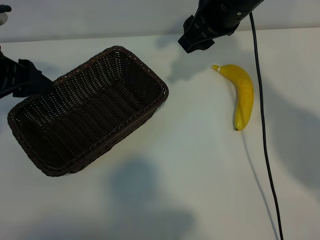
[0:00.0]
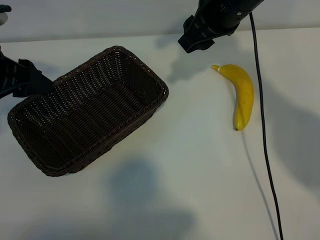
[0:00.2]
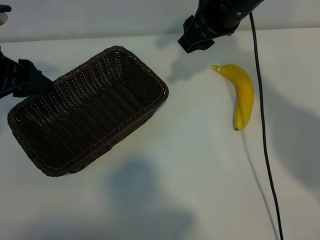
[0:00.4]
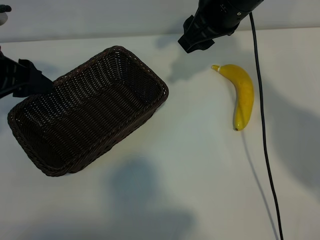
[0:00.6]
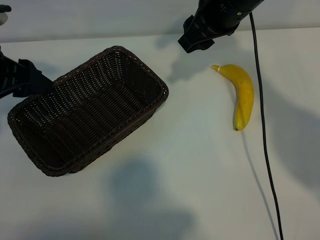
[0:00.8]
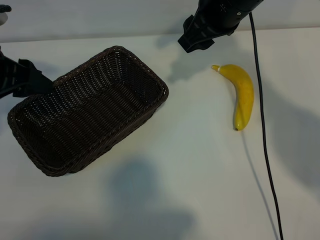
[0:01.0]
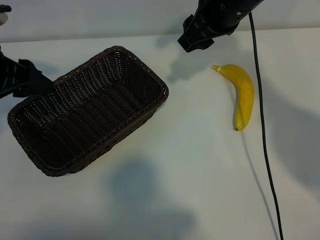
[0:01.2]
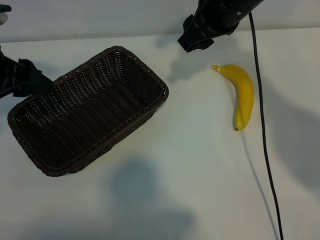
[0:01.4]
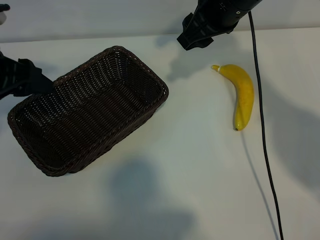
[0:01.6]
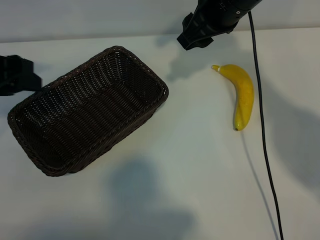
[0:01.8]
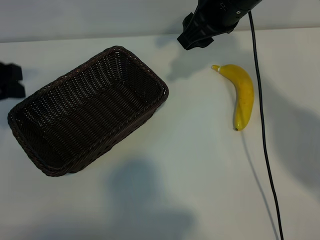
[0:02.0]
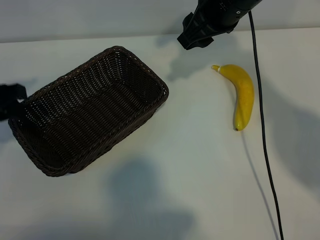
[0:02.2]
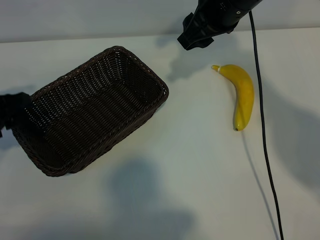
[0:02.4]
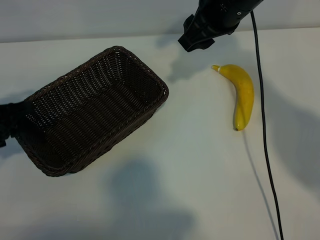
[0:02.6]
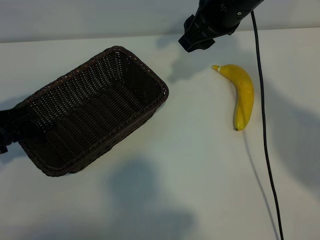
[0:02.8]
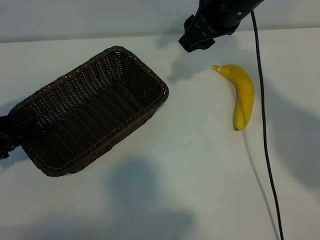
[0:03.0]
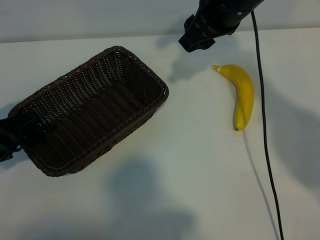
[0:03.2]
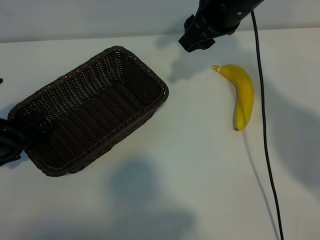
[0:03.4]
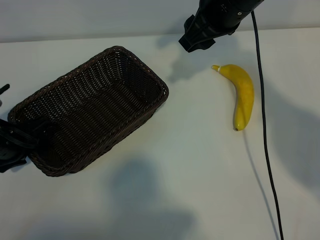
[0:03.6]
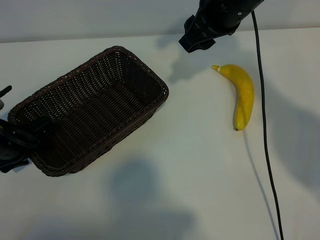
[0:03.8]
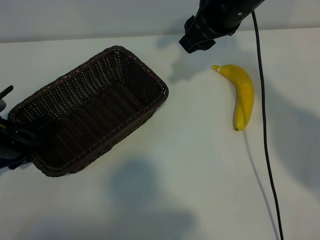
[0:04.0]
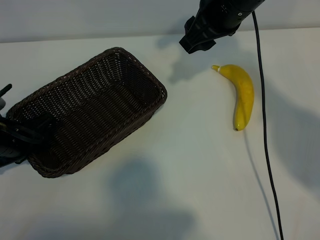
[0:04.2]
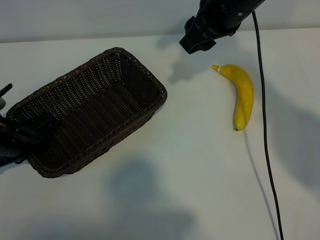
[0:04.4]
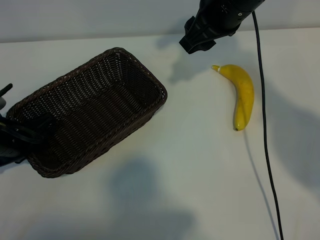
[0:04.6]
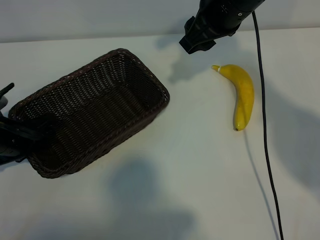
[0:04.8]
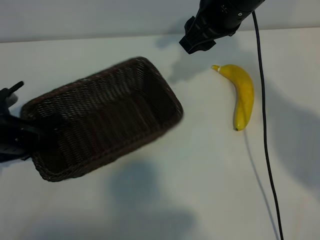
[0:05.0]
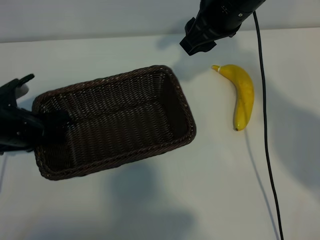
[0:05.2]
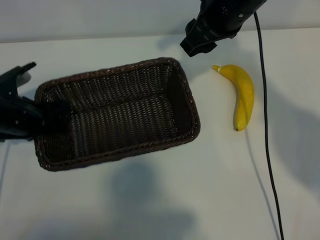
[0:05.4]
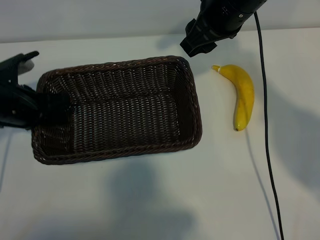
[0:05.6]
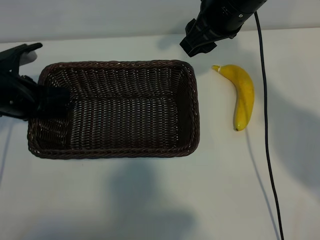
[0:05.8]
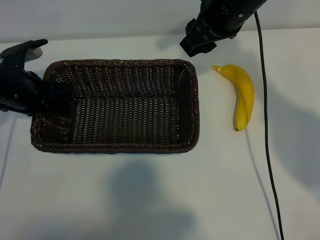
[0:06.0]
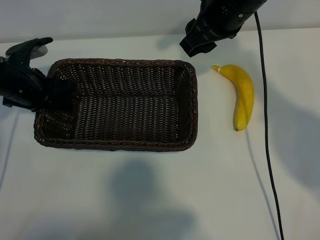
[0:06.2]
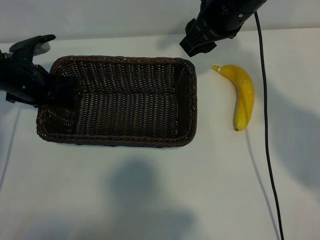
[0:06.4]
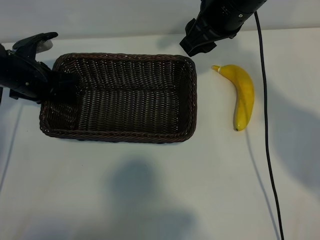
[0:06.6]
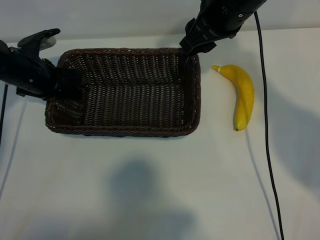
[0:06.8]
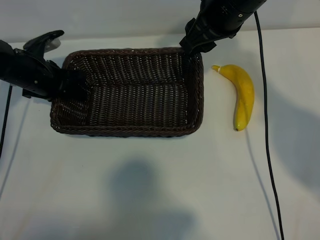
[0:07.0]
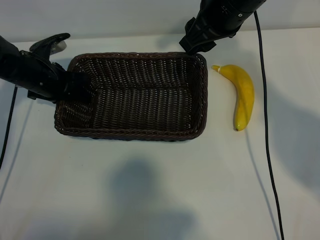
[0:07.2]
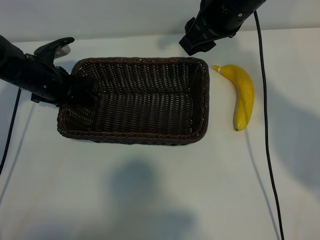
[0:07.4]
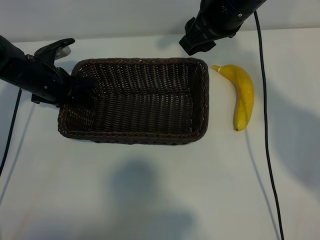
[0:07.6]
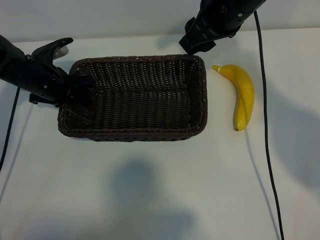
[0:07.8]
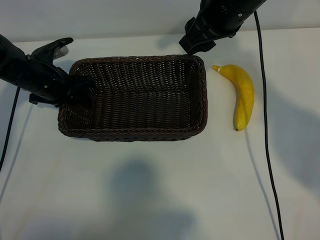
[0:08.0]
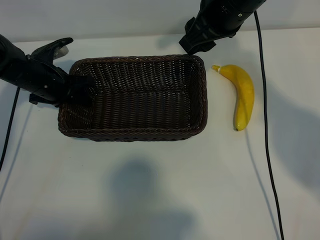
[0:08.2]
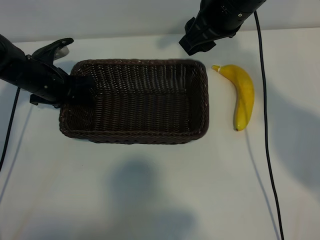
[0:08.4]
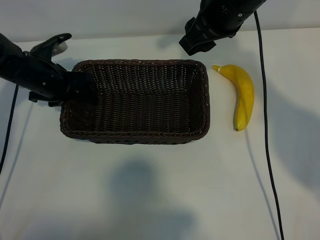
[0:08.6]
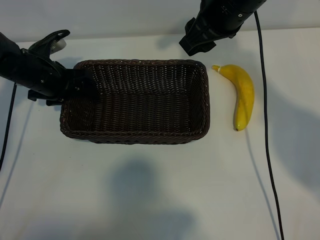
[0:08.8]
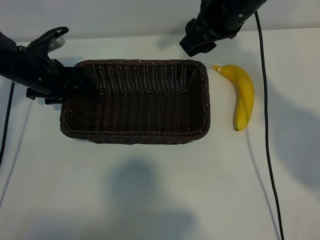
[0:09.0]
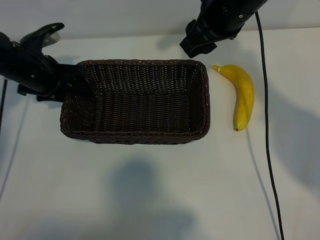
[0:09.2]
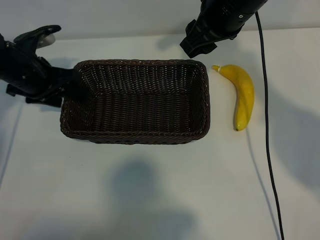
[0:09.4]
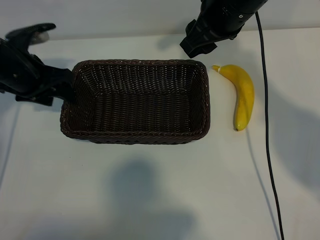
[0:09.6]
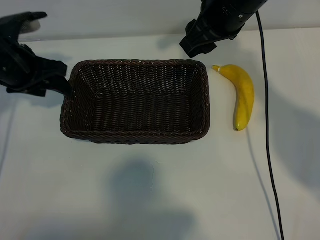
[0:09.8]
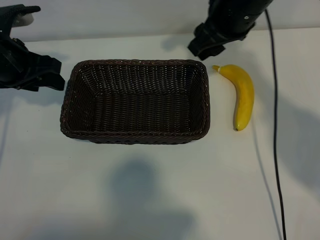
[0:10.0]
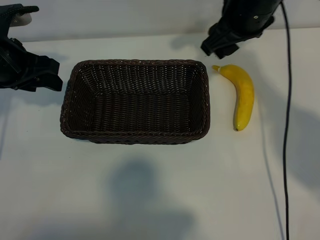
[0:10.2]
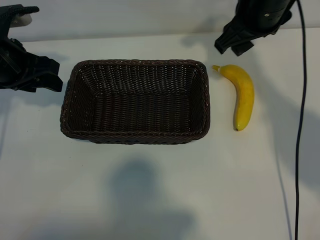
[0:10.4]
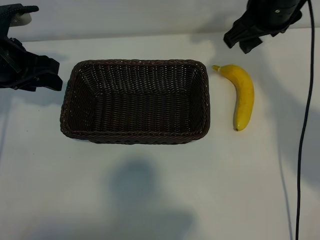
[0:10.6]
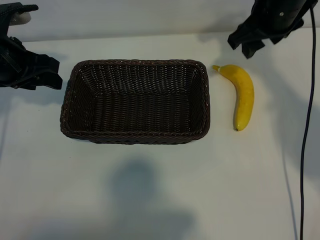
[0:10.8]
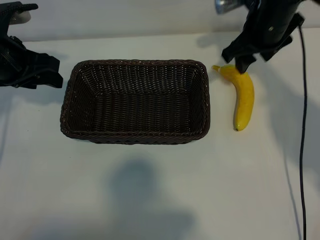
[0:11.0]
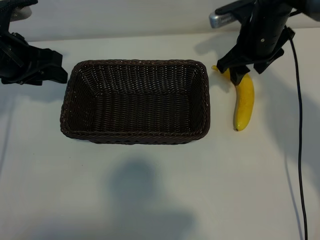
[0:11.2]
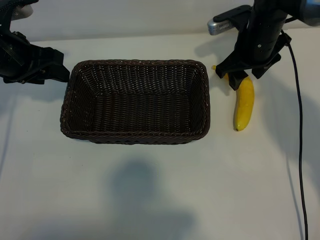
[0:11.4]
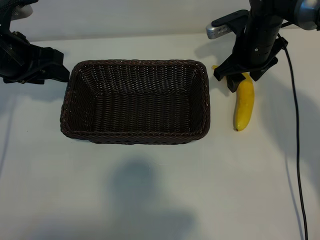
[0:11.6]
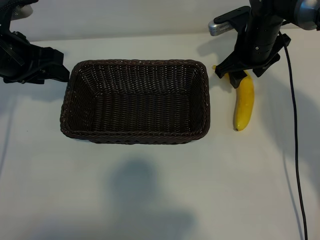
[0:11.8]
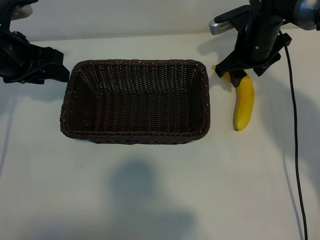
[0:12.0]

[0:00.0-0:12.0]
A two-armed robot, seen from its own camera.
Task of the whole recording: pick up the banana and put it into the basket.
Step, 0:01.0 to 0:04.6: Grasp the basket with the left gripper.
Step, 0:04.8 to 0:09.4: Place the basket in the center of the table with the left gripper.

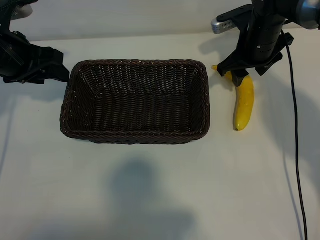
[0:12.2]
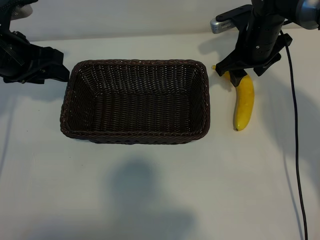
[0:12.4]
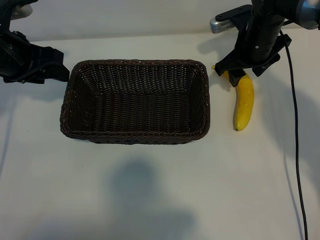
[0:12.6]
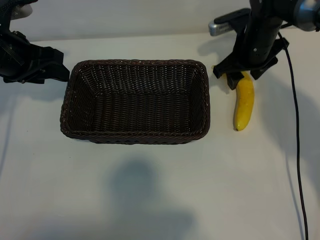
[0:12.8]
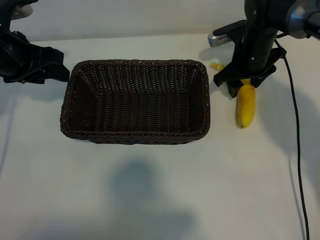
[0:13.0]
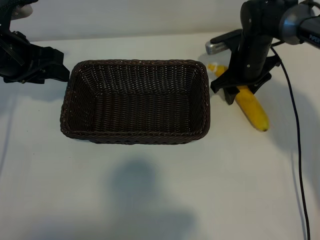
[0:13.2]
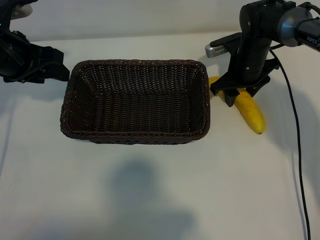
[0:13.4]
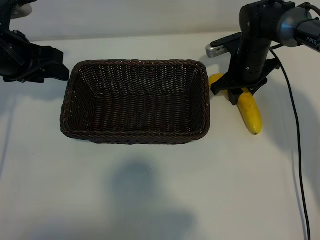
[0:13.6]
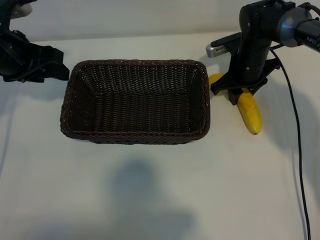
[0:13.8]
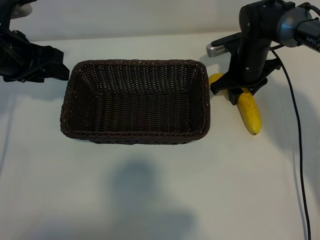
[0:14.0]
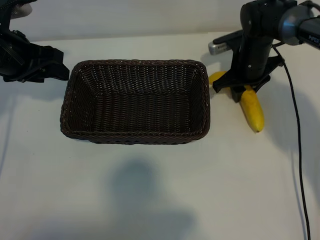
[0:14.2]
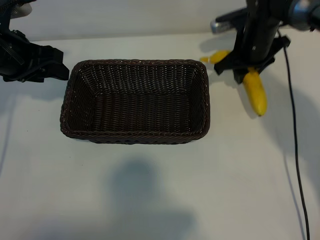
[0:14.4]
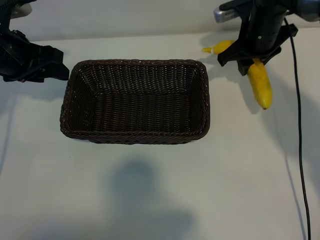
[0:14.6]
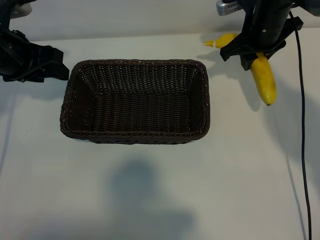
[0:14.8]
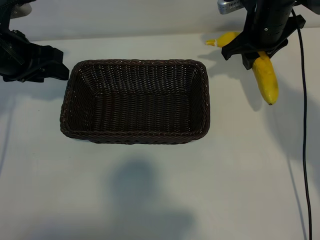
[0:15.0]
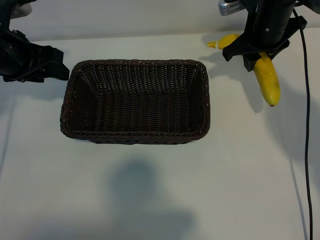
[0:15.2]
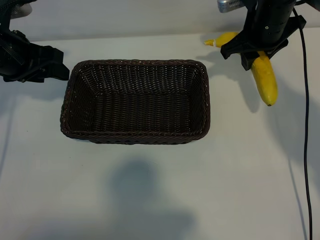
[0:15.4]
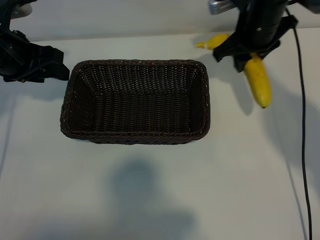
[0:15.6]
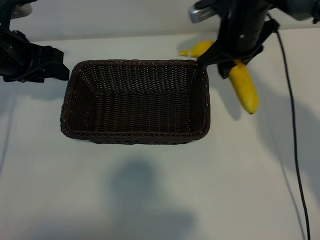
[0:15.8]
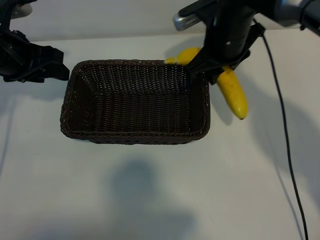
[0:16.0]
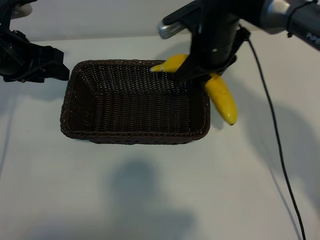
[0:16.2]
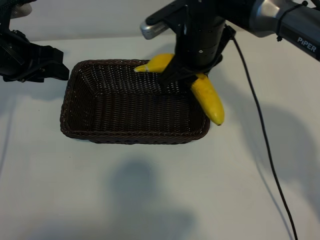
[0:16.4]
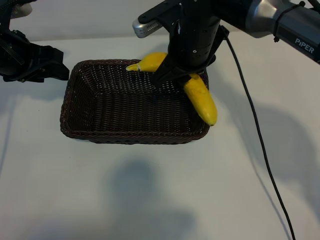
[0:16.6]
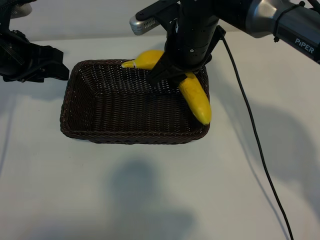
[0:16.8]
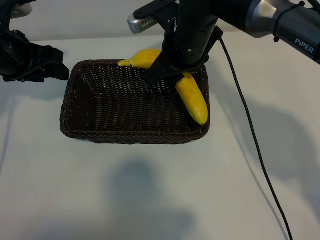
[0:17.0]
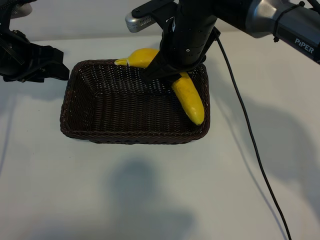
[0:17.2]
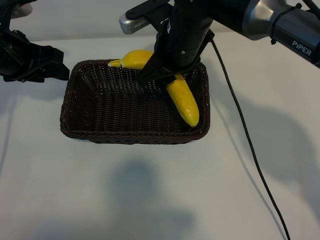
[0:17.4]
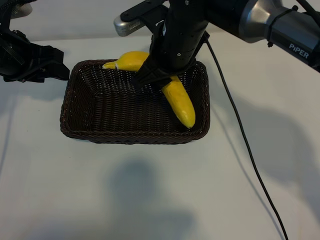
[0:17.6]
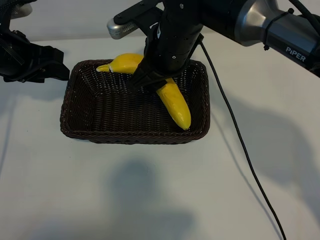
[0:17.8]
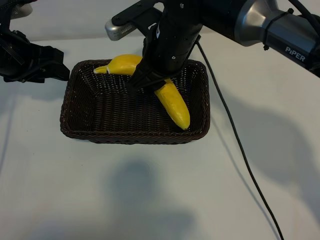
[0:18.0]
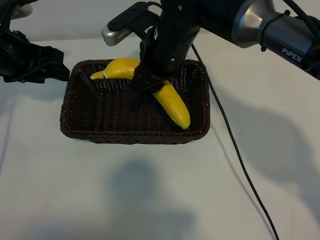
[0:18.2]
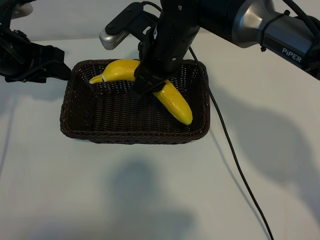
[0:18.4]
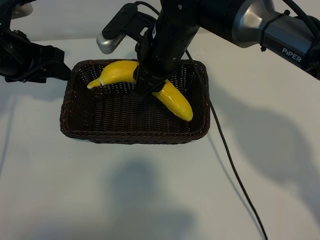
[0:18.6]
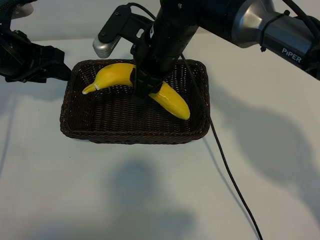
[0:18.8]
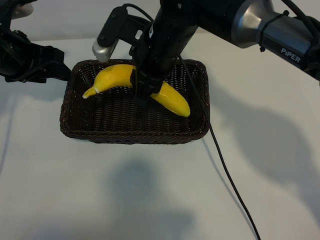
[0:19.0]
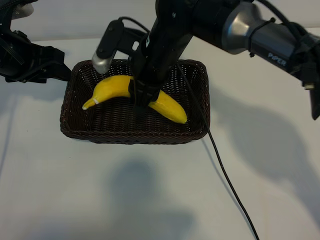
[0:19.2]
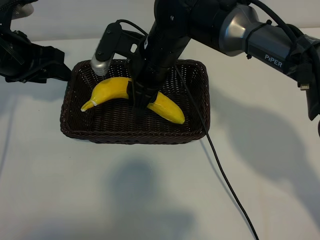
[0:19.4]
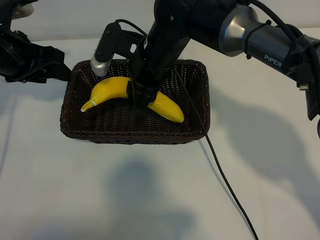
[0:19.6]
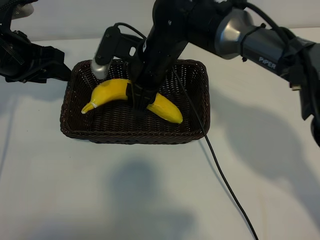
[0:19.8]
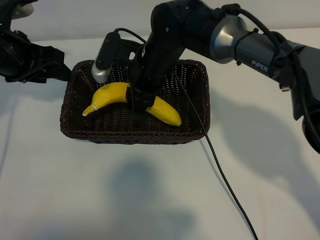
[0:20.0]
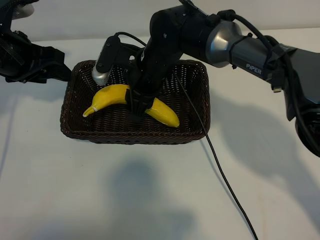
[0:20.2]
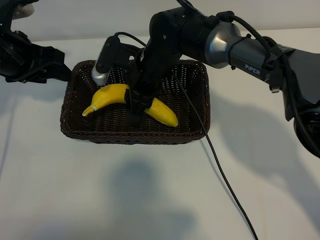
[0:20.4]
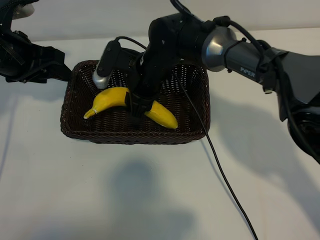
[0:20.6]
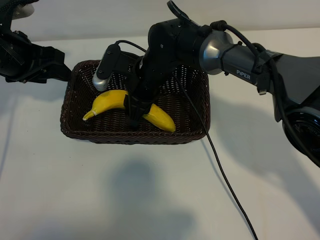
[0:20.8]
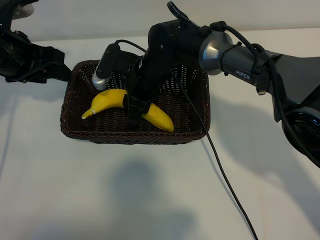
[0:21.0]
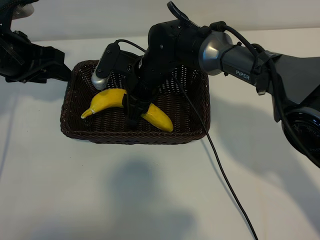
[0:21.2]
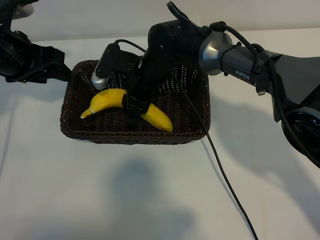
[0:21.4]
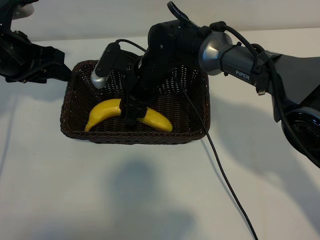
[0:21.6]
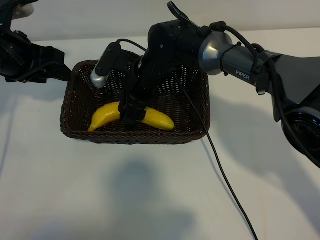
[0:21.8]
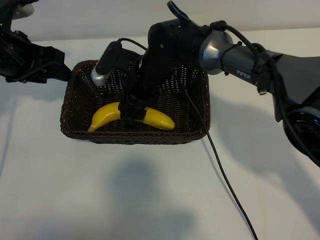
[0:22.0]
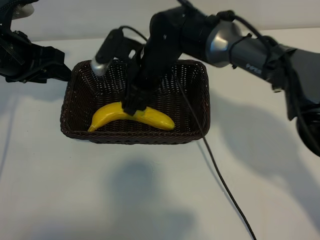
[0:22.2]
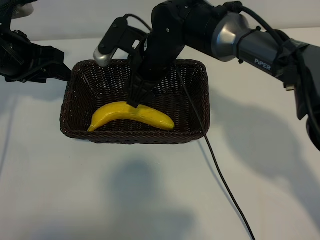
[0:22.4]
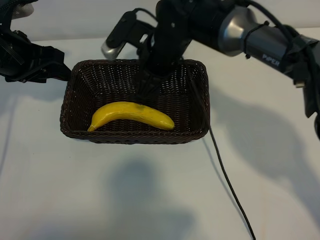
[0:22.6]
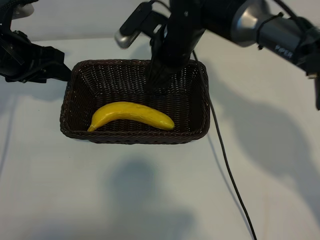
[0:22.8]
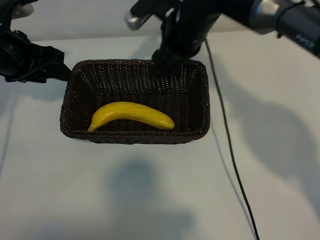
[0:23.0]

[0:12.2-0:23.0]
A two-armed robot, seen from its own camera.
Task of the whole recording: pick up the banana and put it into the basket.
Step, 0:14.2 to 0:22.2: Place the banana in the basket with right gripper.
